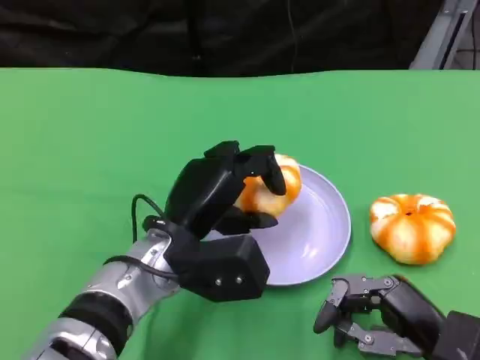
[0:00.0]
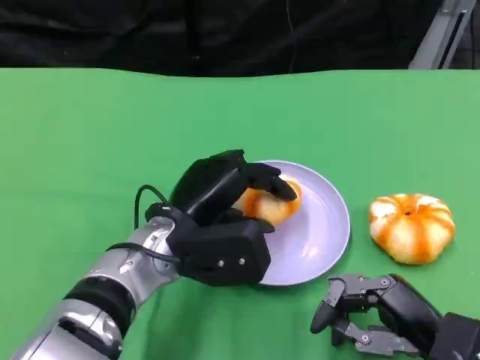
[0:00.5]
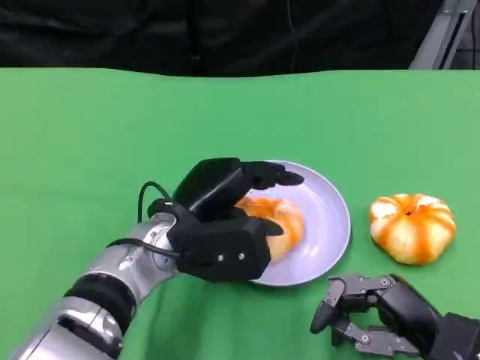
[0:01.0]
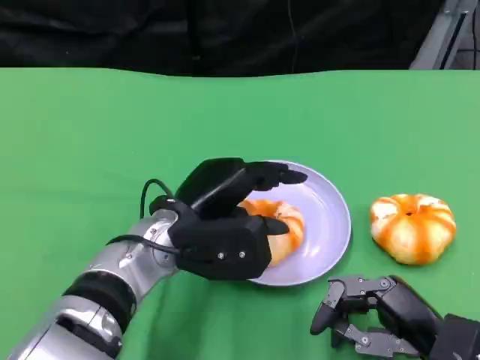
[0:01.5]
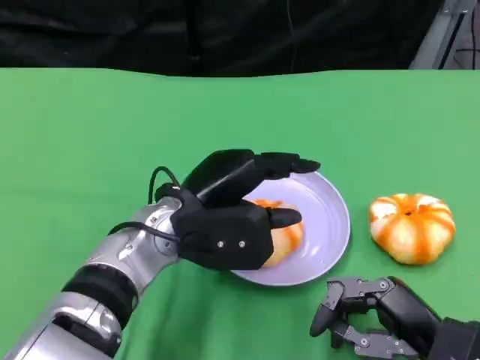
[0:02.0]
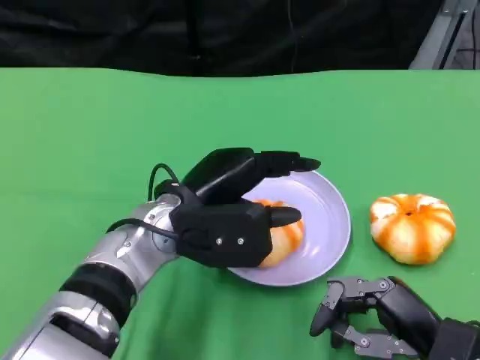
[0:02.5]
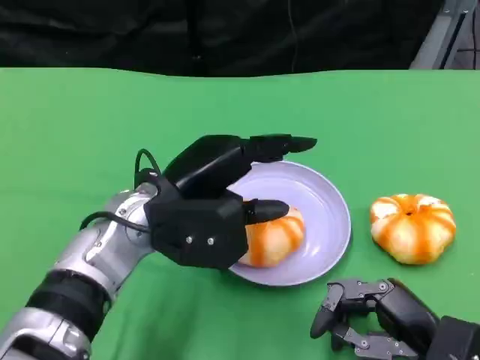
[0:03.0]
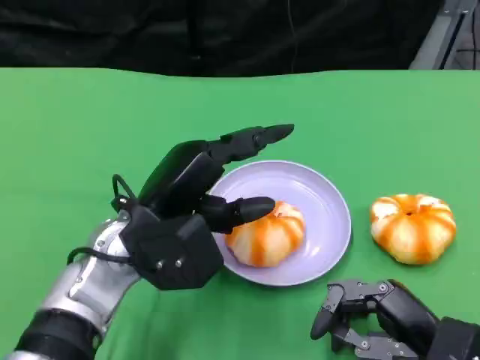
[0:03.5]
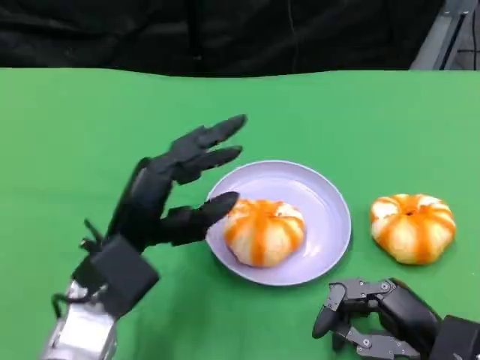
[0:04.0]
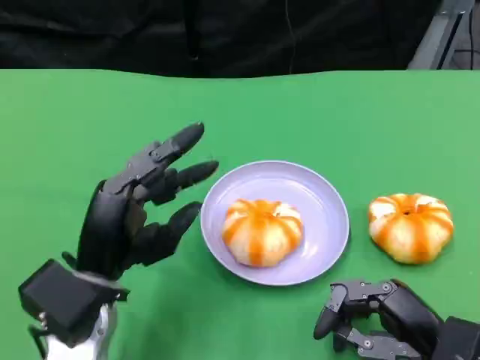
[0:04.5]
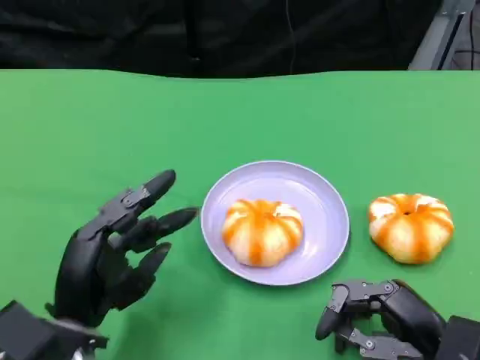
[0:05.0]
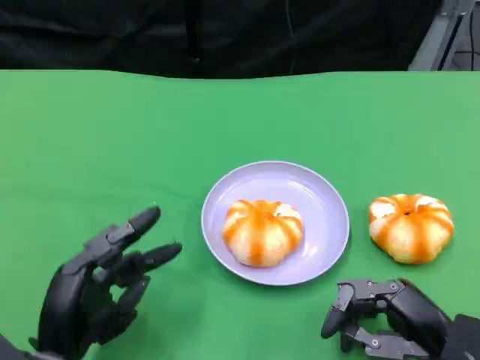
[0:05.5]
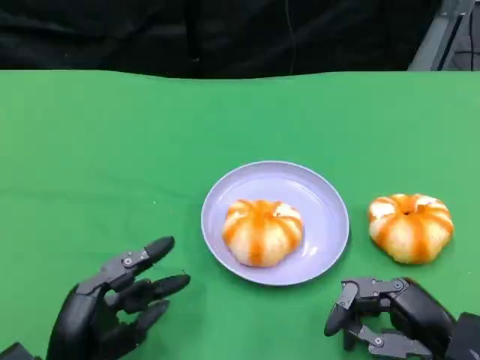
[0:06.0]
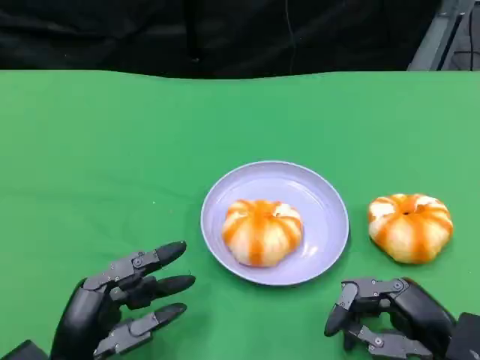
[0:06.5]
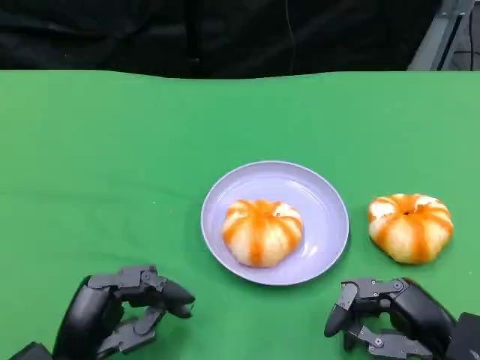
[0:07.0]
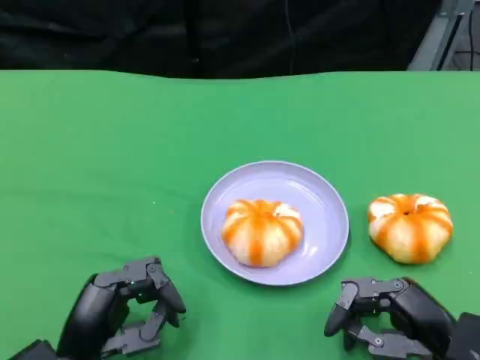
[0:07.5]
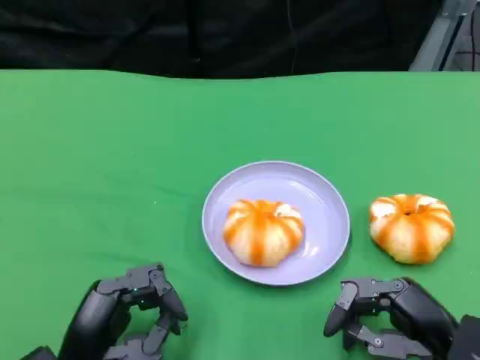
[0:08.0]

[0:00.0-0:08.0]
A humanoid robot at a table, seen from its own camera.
Task of the whole recording: Grasp the bread from the table and place it into the plate.
0:00.0 to 0:02.0: The hands move only a little.
0:02.0 to 0:04.0: The left hand travels to the left by about 5 cm.
0:04.0 to 0:06.0: The left hand travels downward, backward and to the left by about 15 cm.
0:06.0 to 0:08.0: There are only small adjustments of the hands.

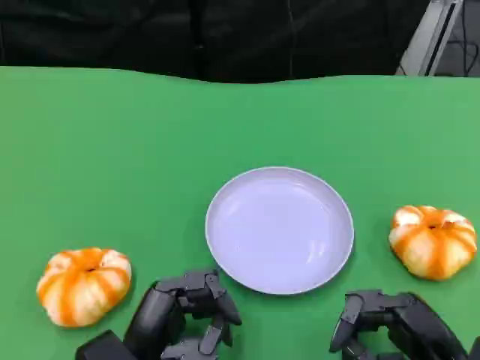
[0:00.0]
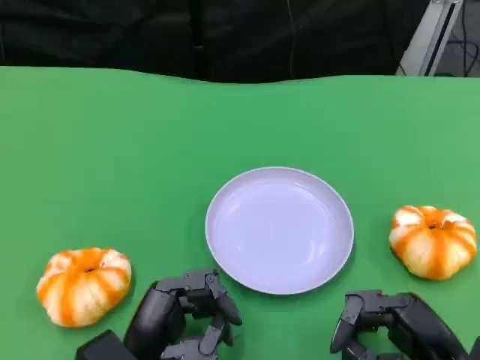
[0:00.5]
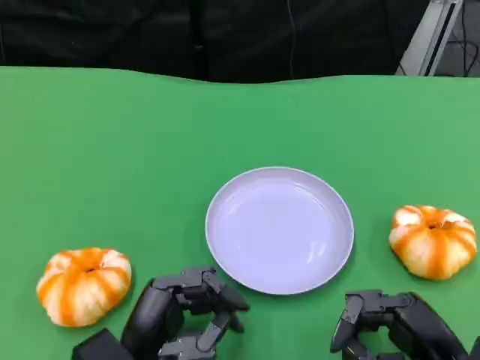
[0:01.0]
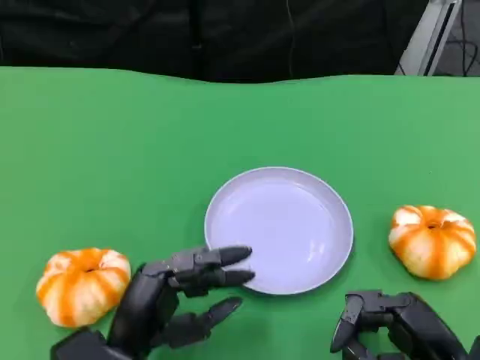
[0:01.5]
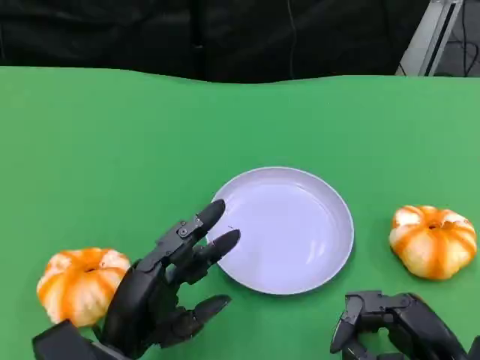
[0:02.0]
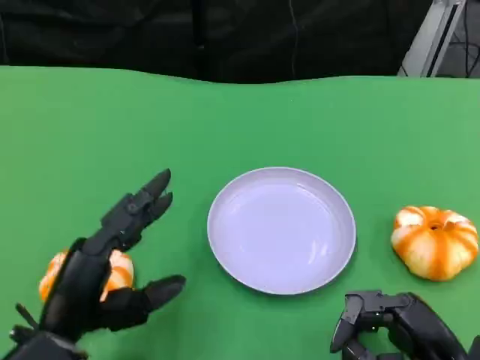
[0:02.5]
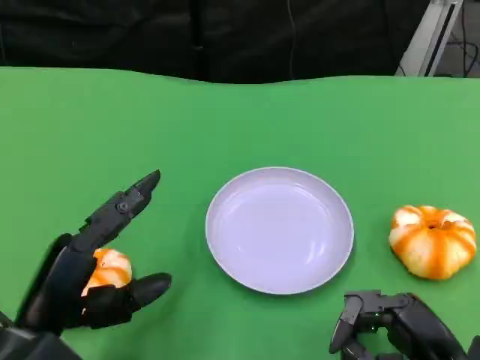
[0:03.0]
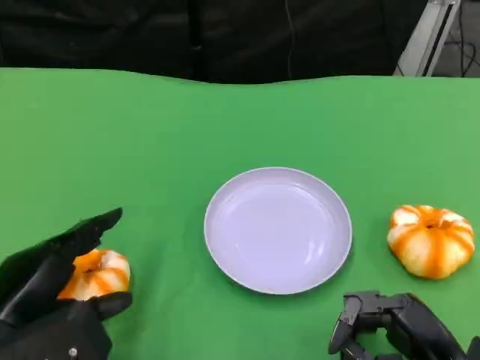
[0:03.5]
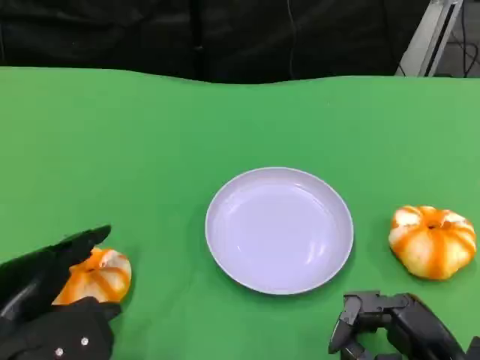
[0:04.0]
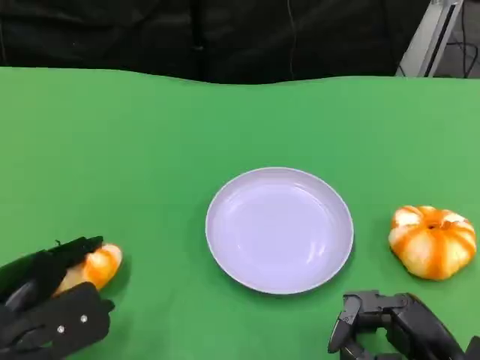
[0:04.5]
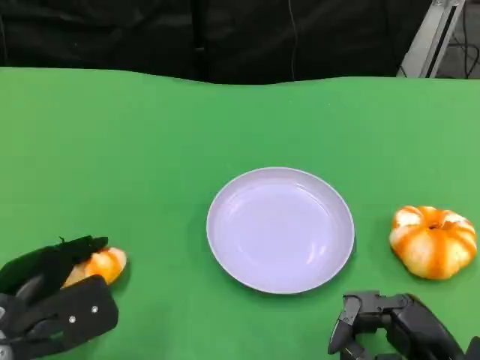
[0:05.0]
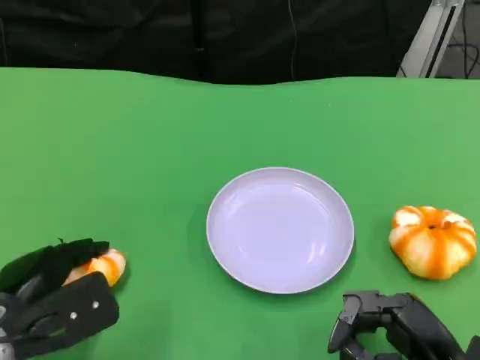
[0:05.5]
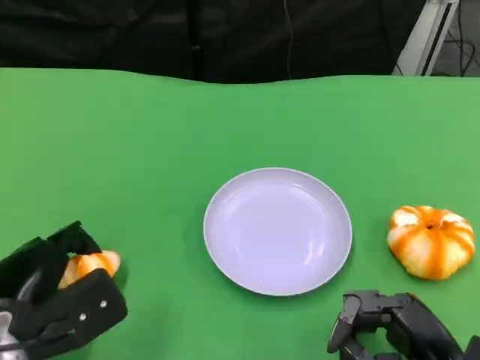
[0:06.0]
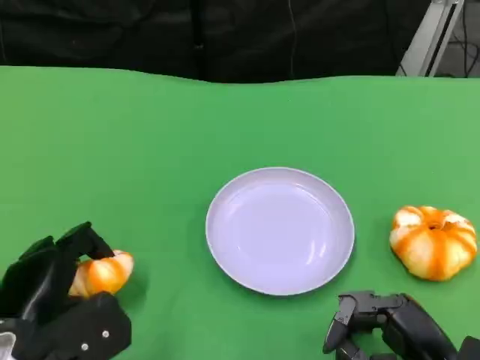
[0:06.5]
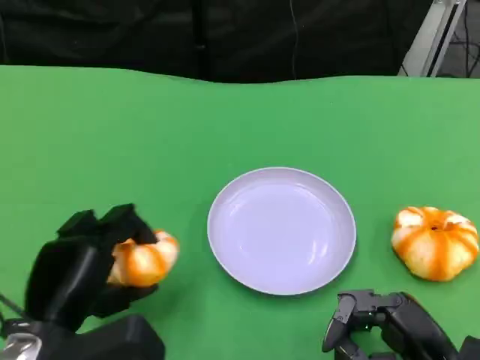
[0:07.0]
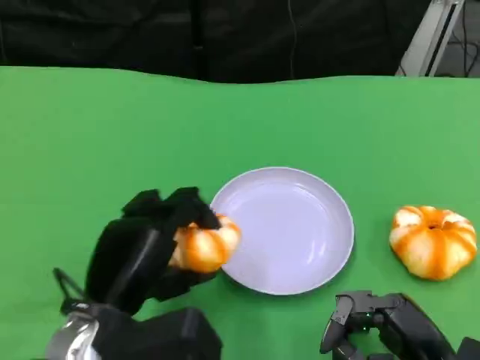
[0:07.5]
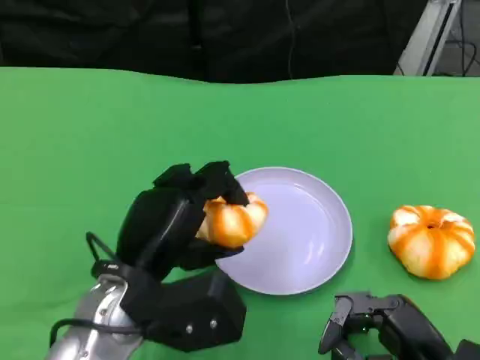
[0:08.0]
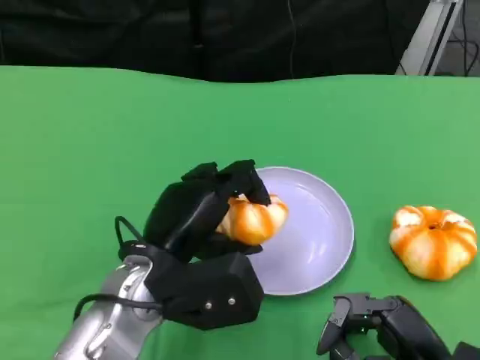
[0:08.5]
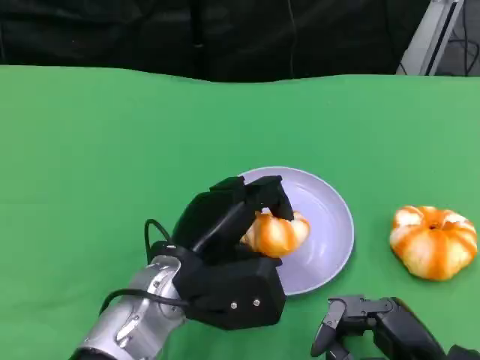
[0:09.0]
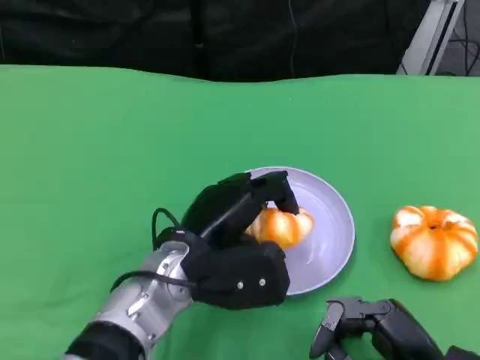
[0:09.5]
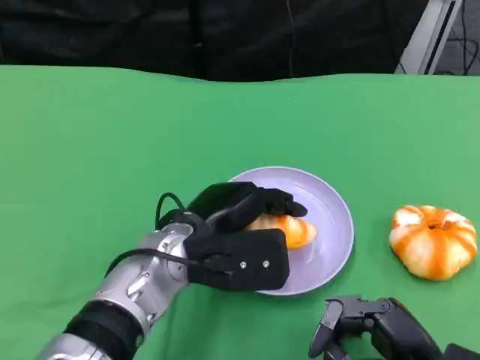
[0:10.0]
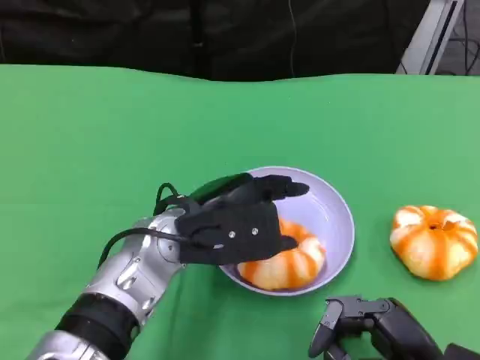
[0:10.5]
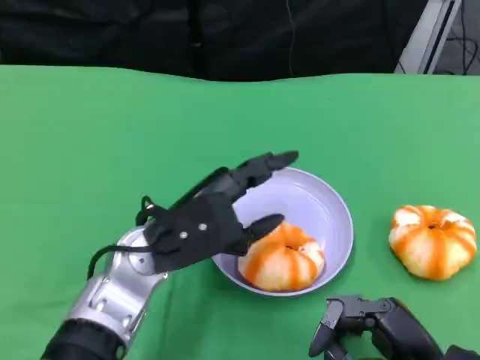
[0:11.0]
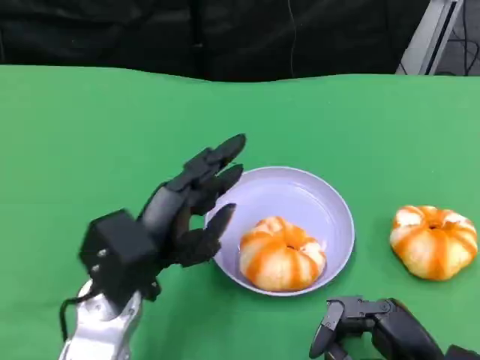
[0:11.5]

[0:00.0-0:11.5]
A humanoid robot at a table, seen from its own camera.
Task of the whole recording: Grasp the bread from the table and place it into the plate.
0:00.0 to 0:02.0: There are only small adjustments of the hands.
0:02.0 to 0:04.0: The left hand moves to the left, roughly 10 cm.
0:04.0 to 0:06.0: The hands make only small movements.
0:06.0 to 0:07.5: The left hand shifts approximately 10 cm to the right and upward.
0:07.5 to 0:09.5: The left hand travels to the right and forward by about 10 cm.
0:09.5 to 0:11.5: The left hand goes about 5 cm to the left.

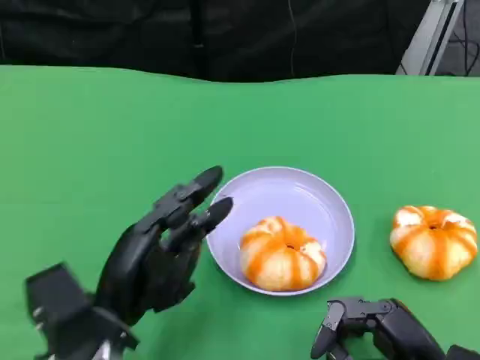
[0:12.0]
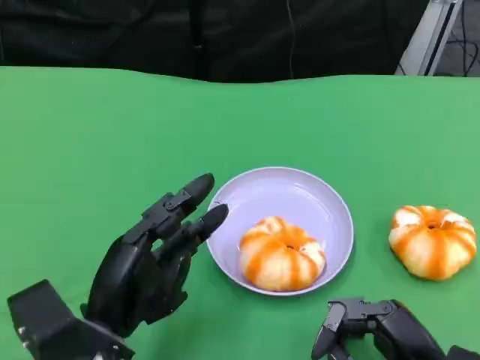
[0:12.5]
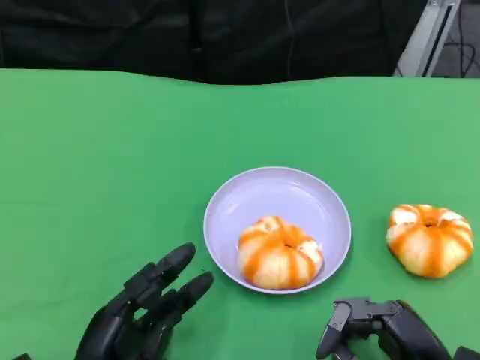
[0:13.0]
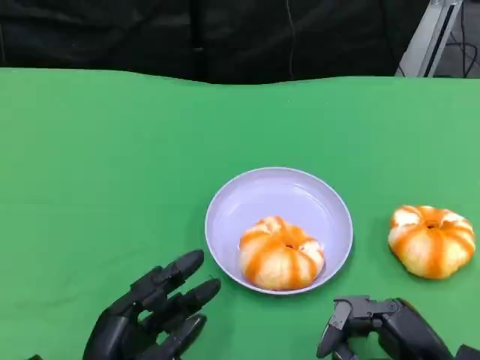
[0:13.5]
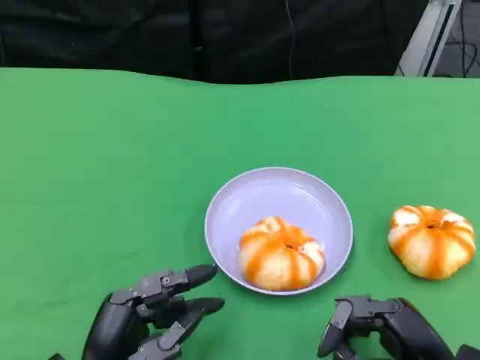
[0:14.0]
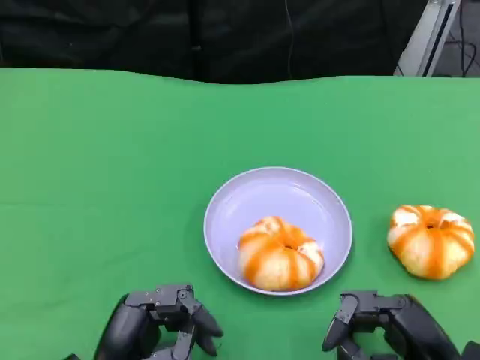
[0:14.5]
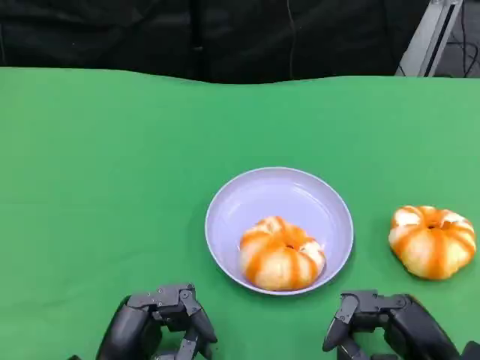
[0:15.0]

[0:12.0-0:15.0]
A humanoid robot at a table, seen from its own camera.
Task of the whole recording: Grasp the bread from the table and place it into the plate.
0:12.0 to 0:13.5: The left hand heads downward and backward, covering about 5 cm.
0:13.5 to 0:15.0: The hands move only a little.
